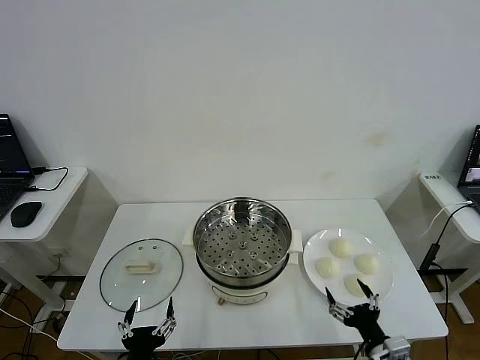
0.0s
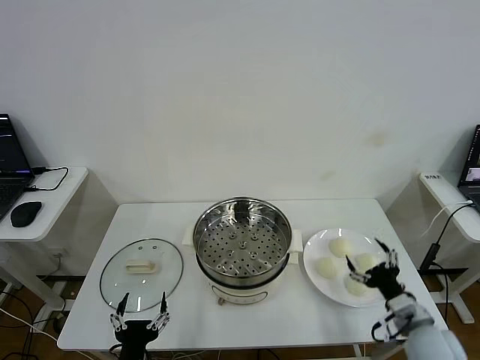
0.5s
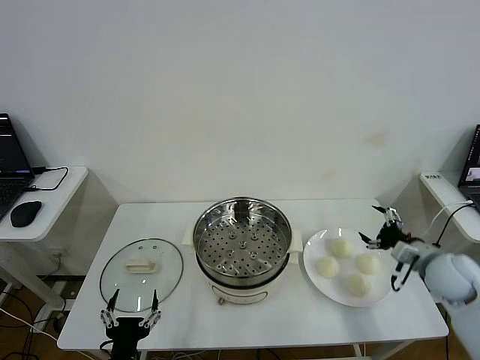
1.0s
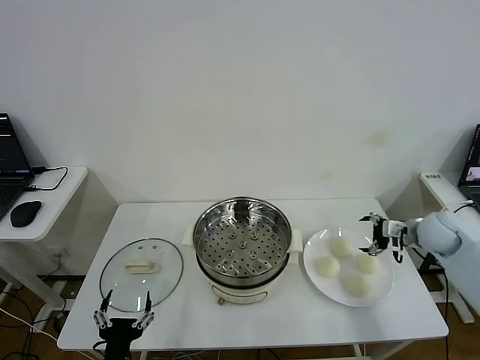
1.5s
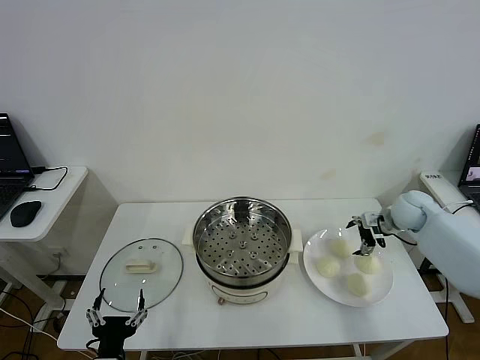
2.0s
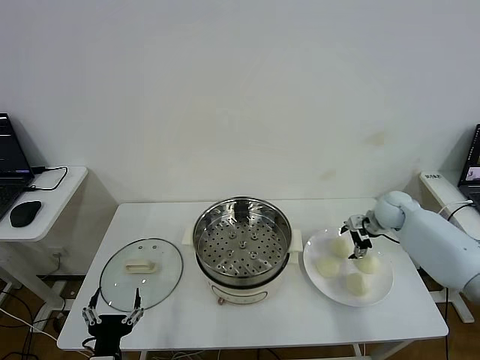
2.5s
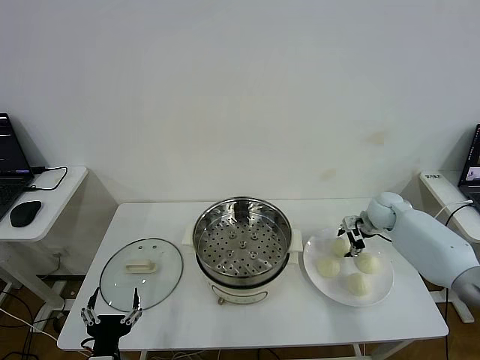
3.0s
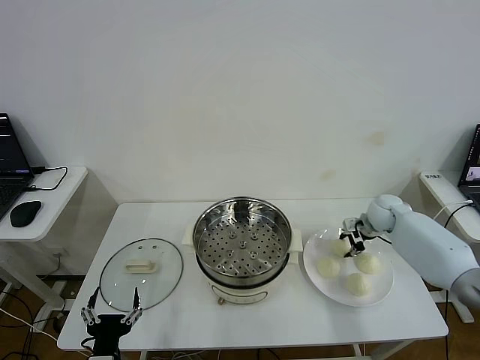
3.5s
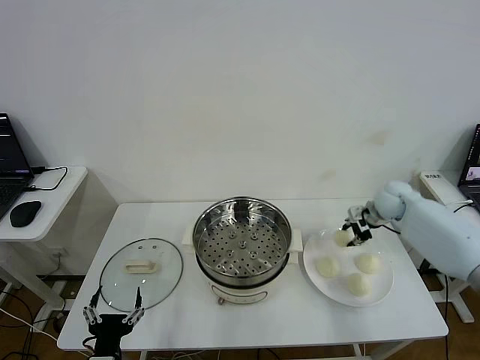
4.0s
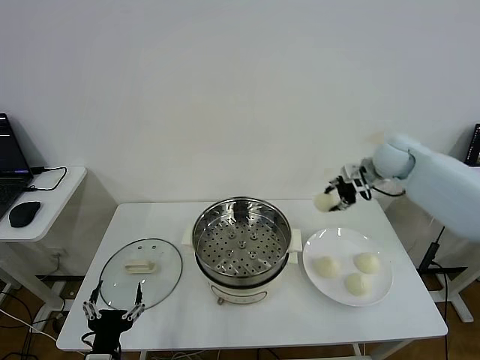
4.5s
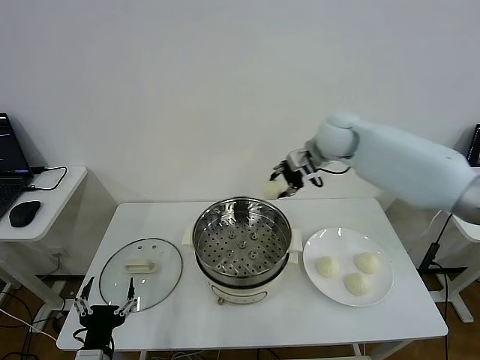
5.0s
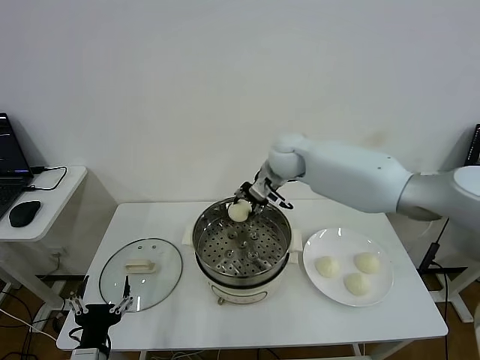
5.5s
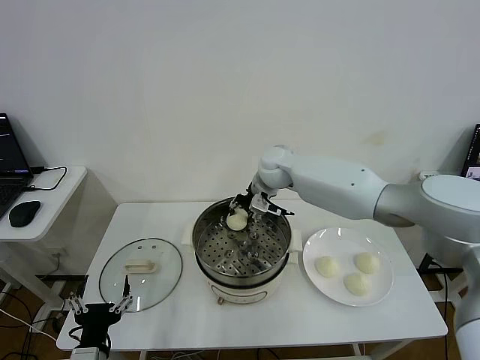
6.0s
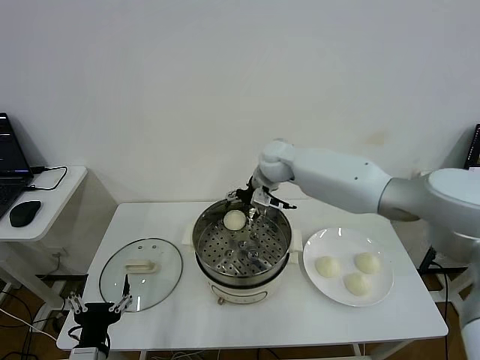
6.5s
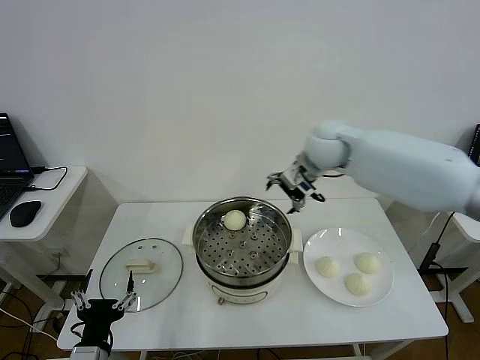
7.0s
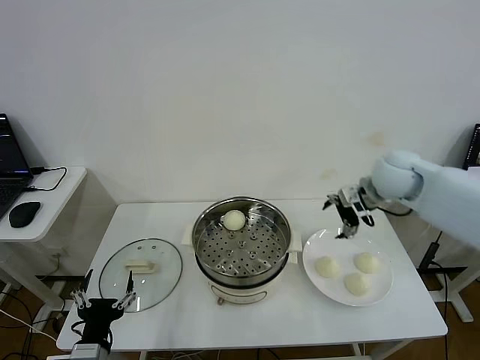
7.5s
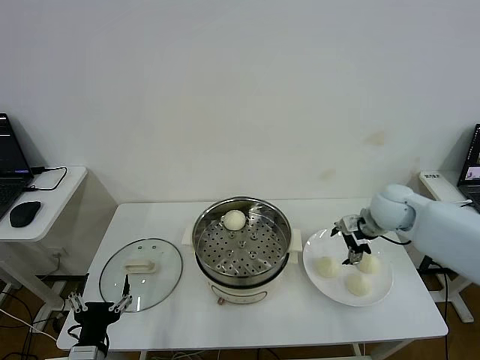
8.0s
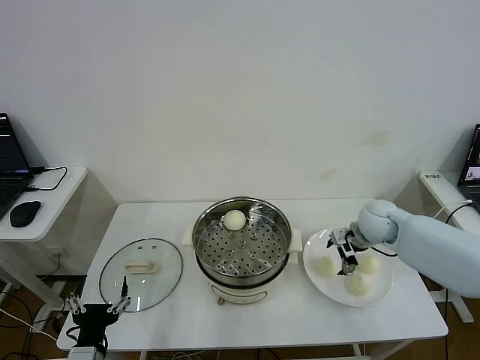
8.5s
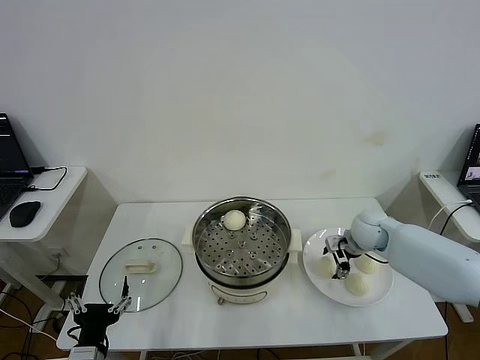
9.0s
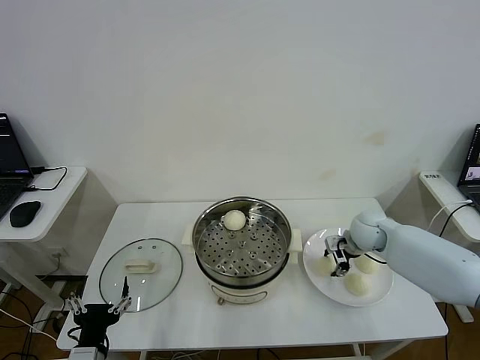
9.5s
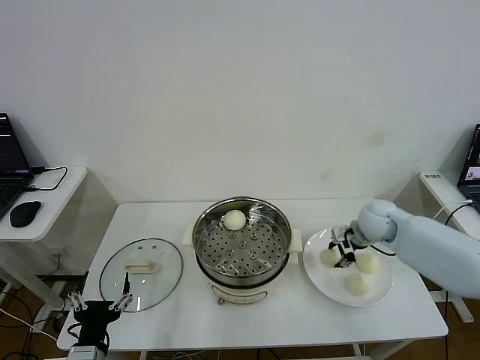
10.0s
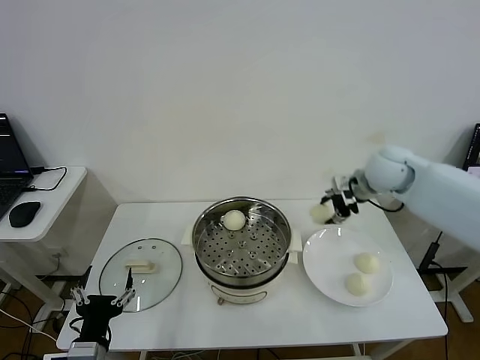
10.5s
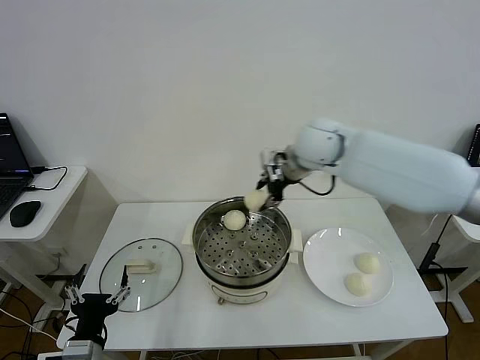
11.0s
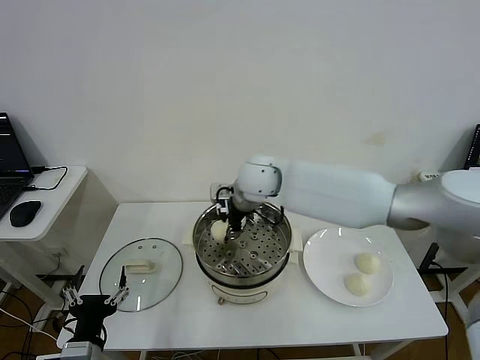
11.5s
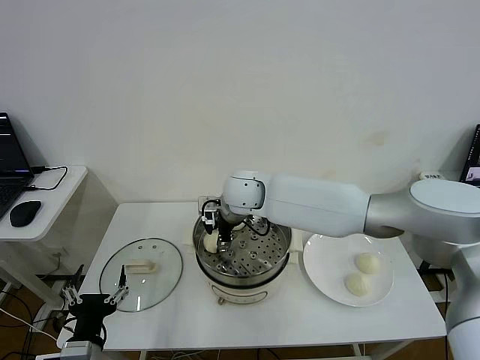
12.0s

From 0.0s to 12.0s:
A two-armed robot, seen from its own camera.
Step, from 0.0s to 3.0s: Grasp the baozi in the plate with right gripper.
Step, from 3.5s to 6.0s: Place the baozi on the steamer with right gripper.
Step, from 6.5s to 9.5s: Grasp the baozi in the plate with right gripper.
From 2.0s to 4.0s: The right gripper ends up approximately 5 cm from where it was, and closes its fingers.
From 4.0s to 6.0s: The right gripper is displaced to the left by roughly 30 cm.
From 6.0s to 8.0s: The right gripper travels to the right and backward by approximately 25 cm, and opens its fingers.
From 8.0s to 10.0s: The right gripper moves roughly 10 cm downward and comes back, and closes its fingers.
From 10.0s to 12.0s: The right gripper travels to the left by about 35 cm, and opens.

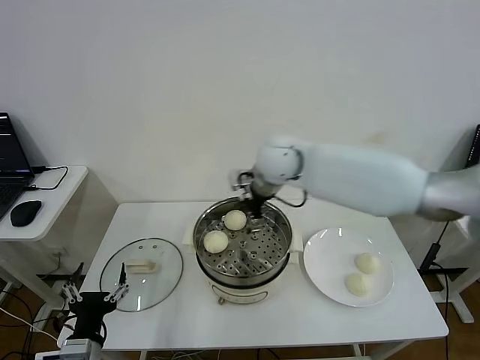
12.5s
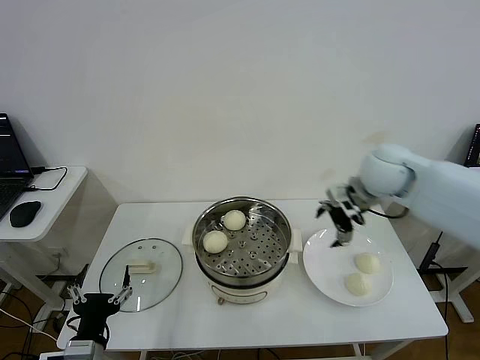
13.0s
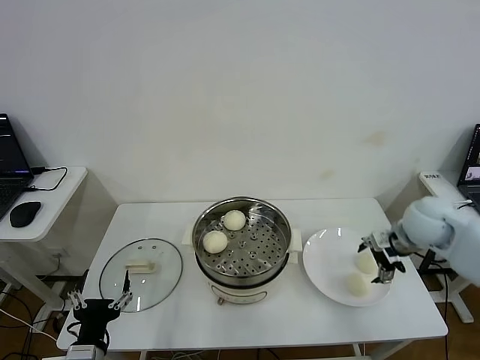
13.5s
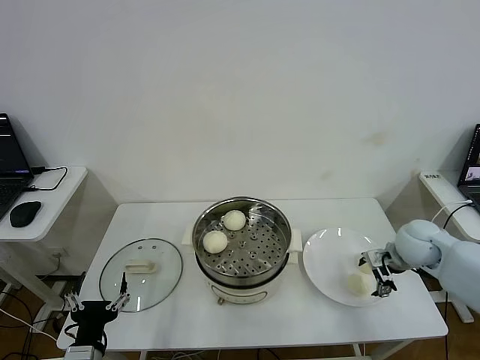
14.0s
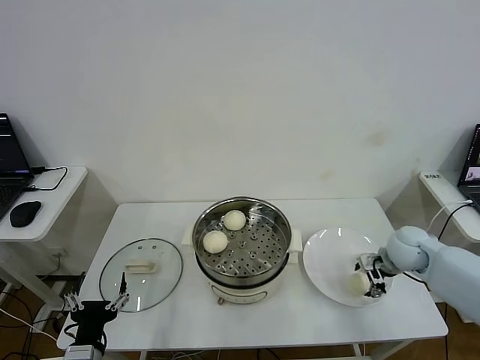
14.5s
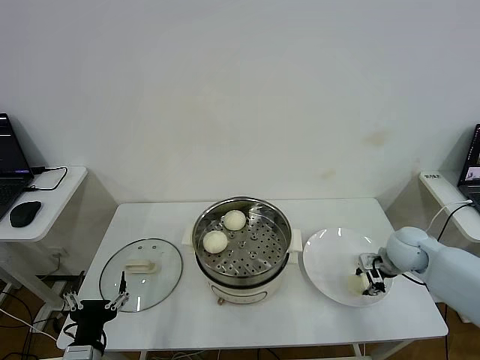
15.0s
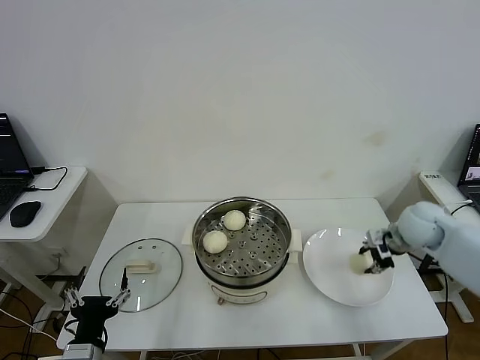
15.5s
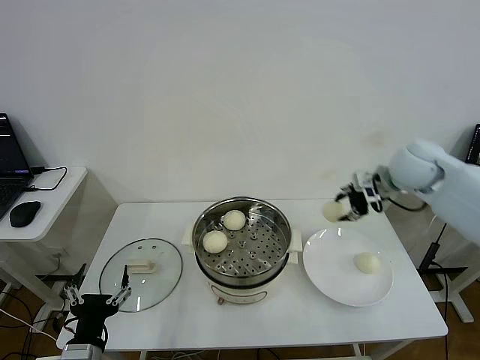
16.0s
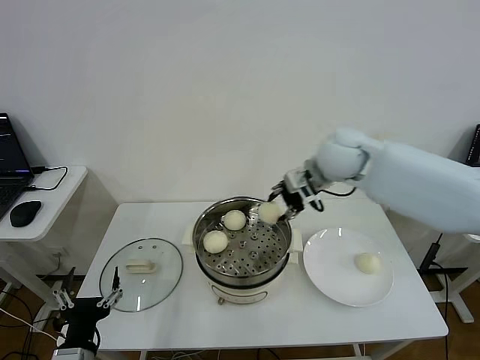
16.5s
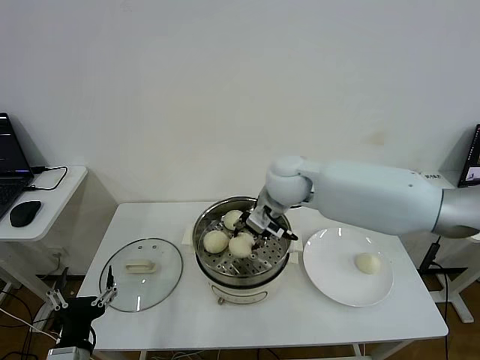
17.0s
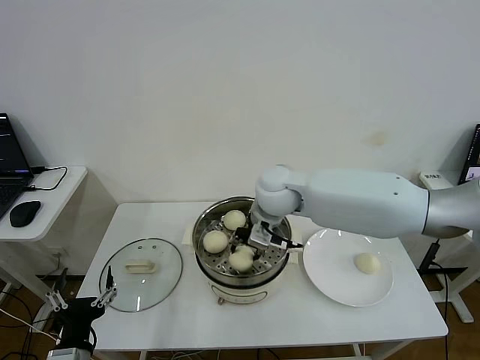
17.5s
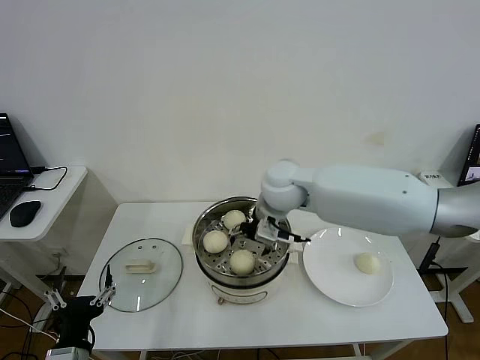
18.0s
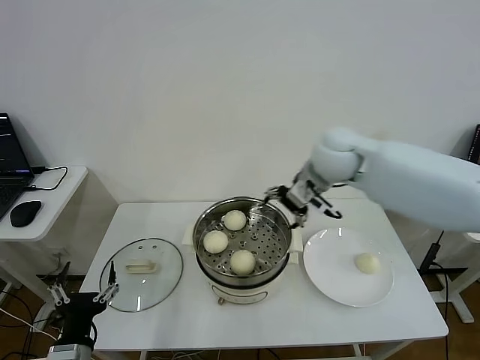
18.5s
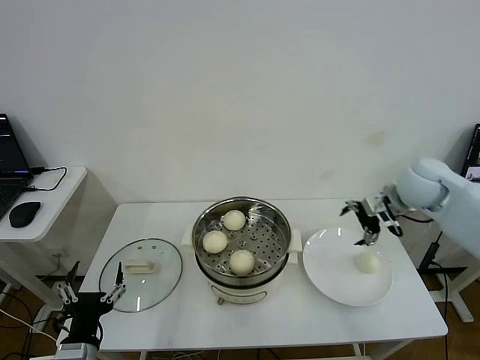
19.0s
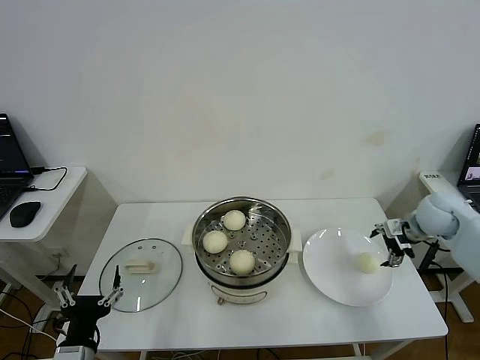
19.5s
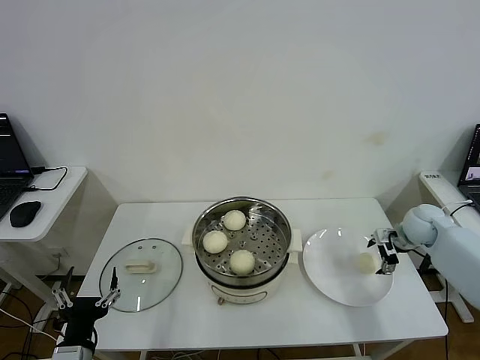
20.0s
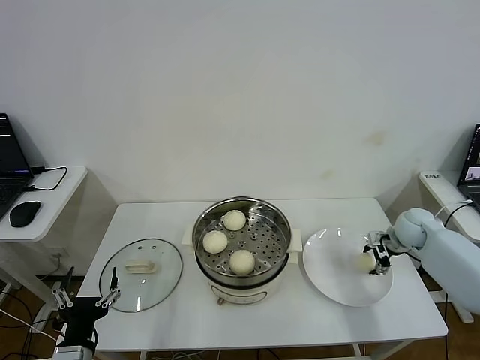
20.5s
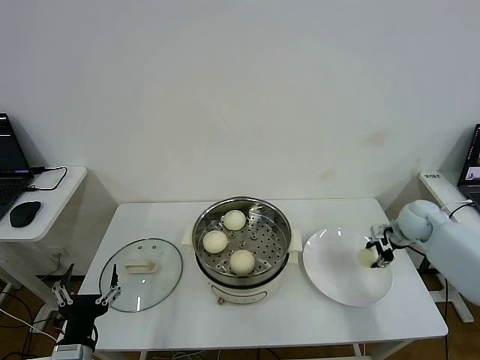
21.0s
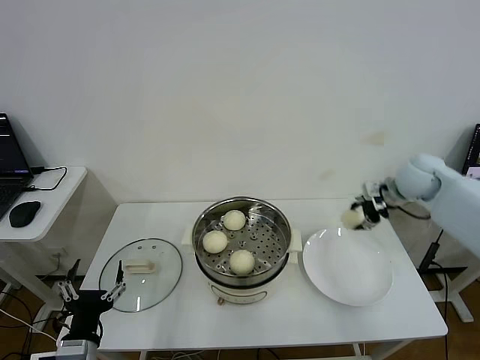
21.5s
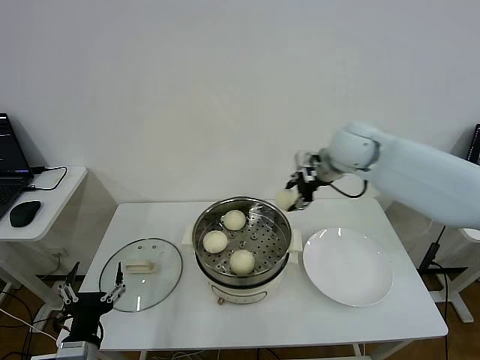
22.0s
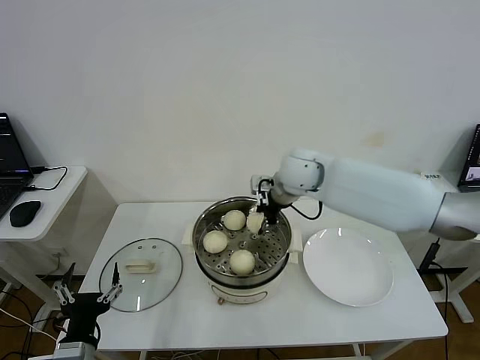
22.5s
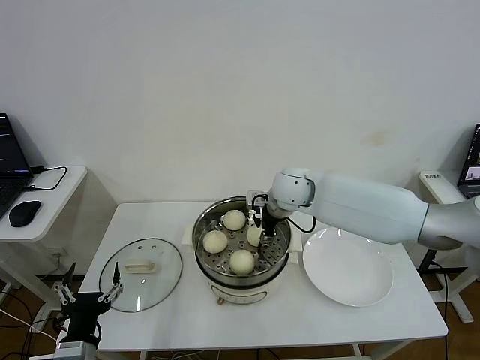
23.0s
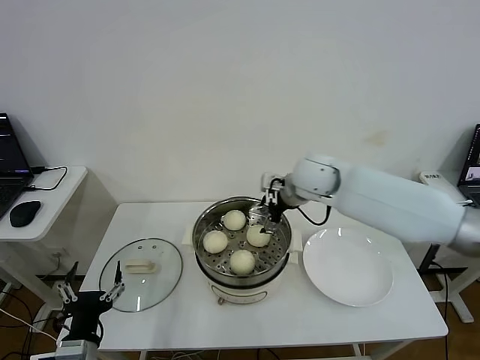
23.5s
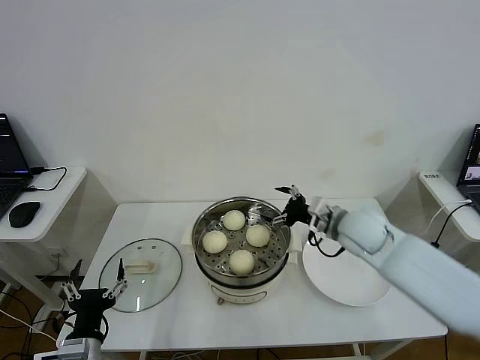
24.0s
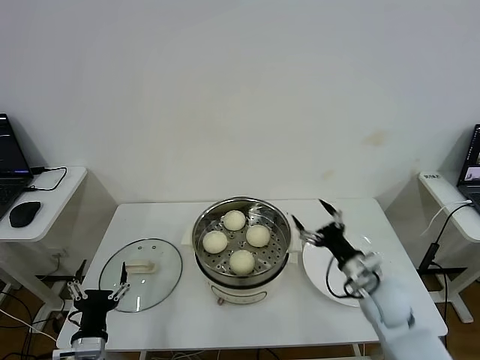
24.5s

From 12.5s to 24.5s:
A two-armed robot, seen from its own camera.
Step, from 12.5s to 15.0s: Grasp the baozi in the plate with right gripper.
Step, from 15.5s to 17.5s: Place the baozi on the steamer with right gripper.
Step, from 18.0s to 20.5s: Grasp the baozi in the plate with right gripper.
Step, from 21.0s to 23.0s: Place the baozi on the steamer with right gripper.
From 12.5s to 14.5s: The right gripper travels to the right and downward by approximately 35 cm, and closes its fingers.
From 14.5s to 16.5s: The right gripper is displaced to the left and upward by approximately 30 cm, and closes up.
From 16.5s to 18.5s: The right gripper travels to the left and back again, approximately 10 cm each way, and opens up.
From 18.5s to 20.5s: The right gripper shifts approximately 35 cm to the right and downward, and closes up.
From 20.5s to 22.5s: The right gripper travels to the left and upward by about 35 cm.
From 22.5s to 24.5s: The left gripper ends up about 5 cm from where it was. The right gripper moves backward, downward and to the right, about 35 cm, and opens.

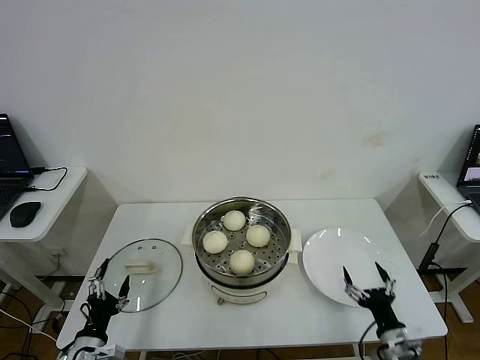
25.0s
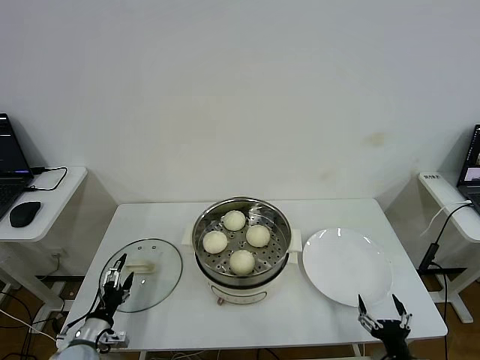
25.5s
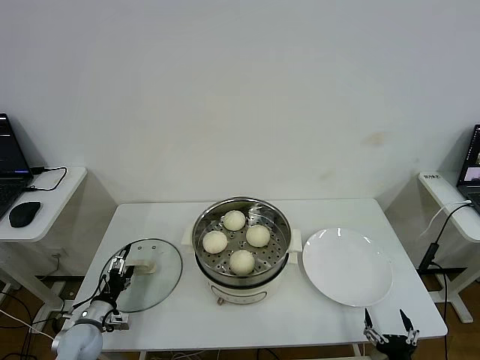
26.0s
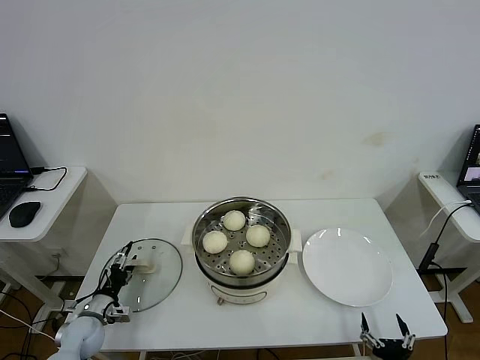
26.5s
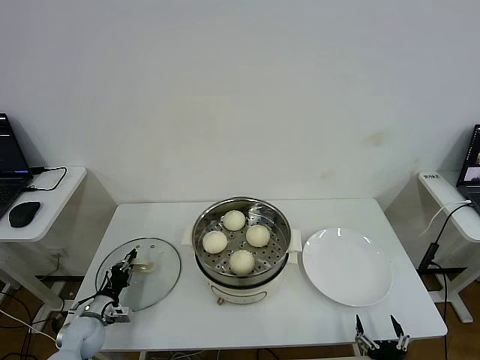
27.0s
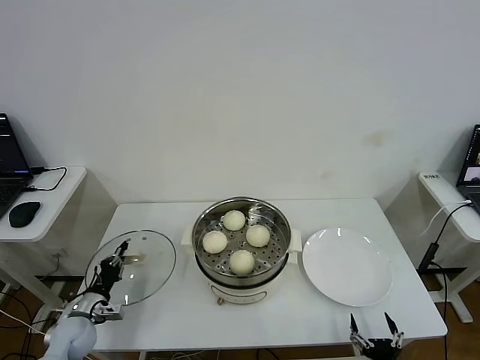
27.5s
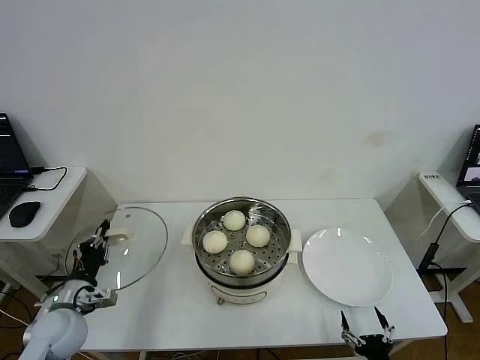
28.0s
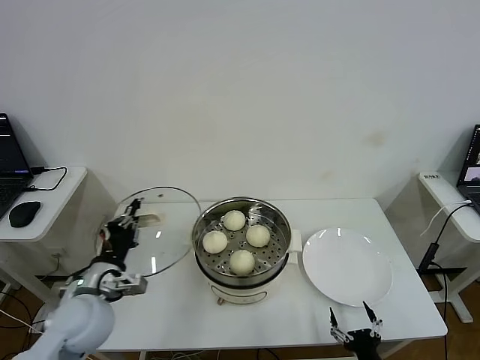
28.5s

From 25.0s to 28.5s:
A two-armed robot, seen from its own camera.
Step, from 25.0s to 27.0s: Grasp the pot lid with left gripper.
From 25.0s to 27.0s: The left gripper heads forward, downward and to the left, covering approximately 15 cm, and closes, while the right gripper shifts some 10 cm backward.
From 27.0s to 28.5s: The left gripper heads upward and to the right, covering about 25 cm.
